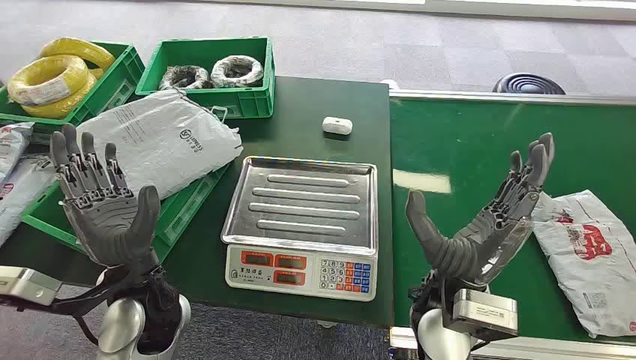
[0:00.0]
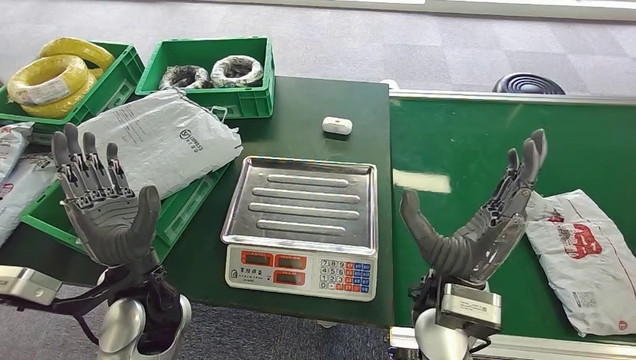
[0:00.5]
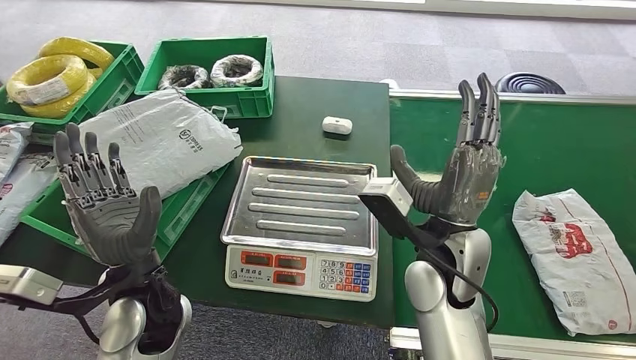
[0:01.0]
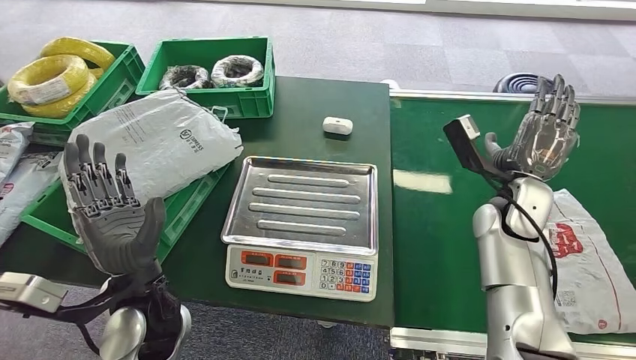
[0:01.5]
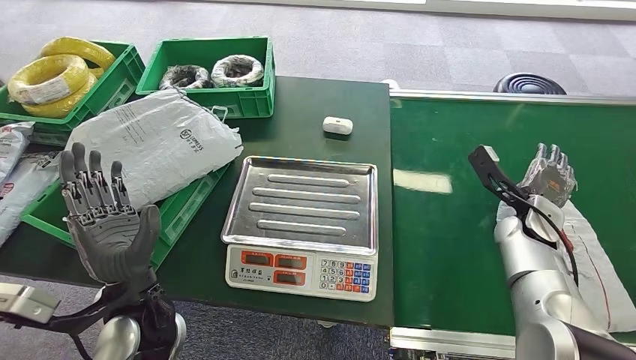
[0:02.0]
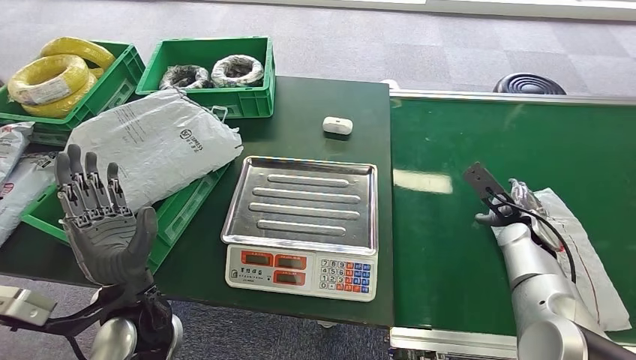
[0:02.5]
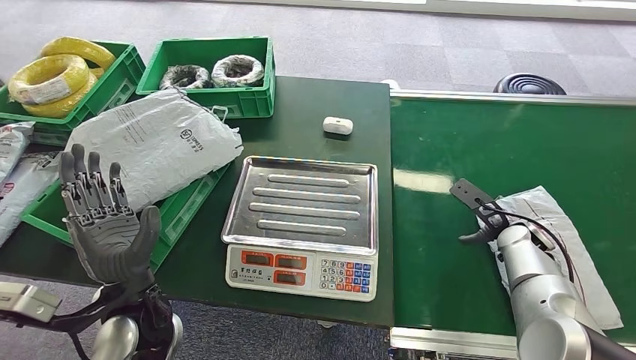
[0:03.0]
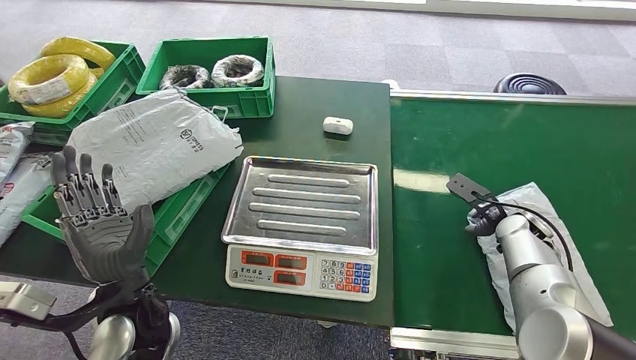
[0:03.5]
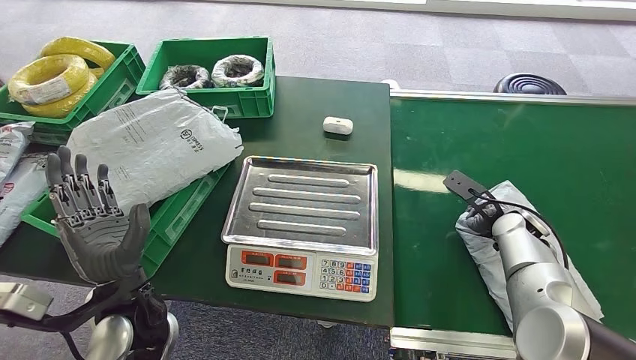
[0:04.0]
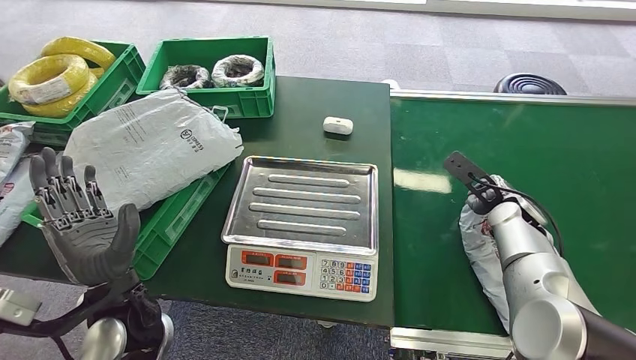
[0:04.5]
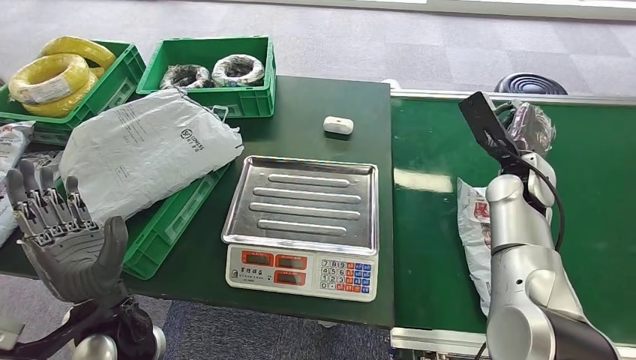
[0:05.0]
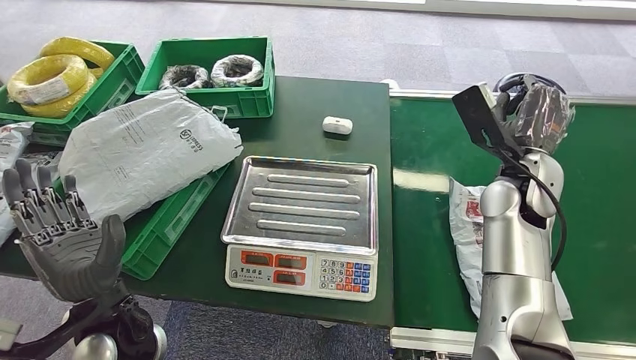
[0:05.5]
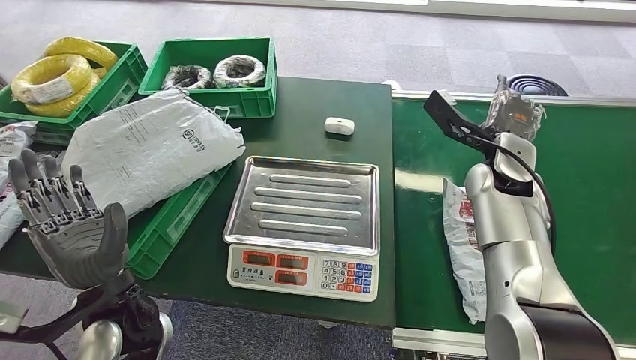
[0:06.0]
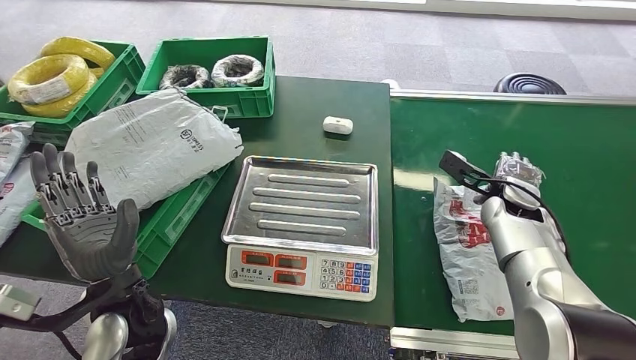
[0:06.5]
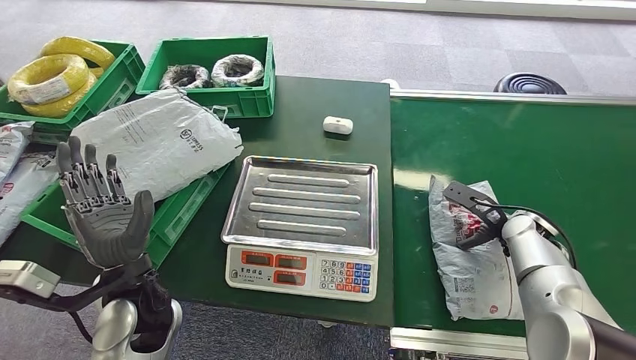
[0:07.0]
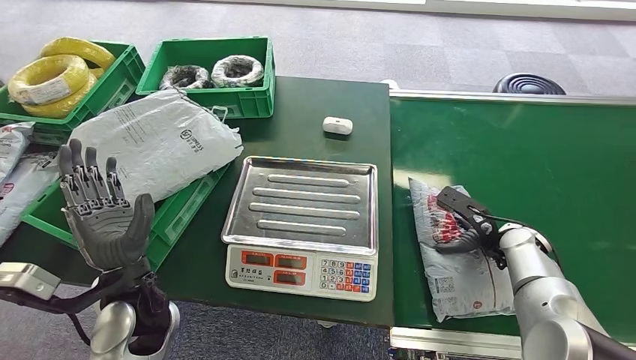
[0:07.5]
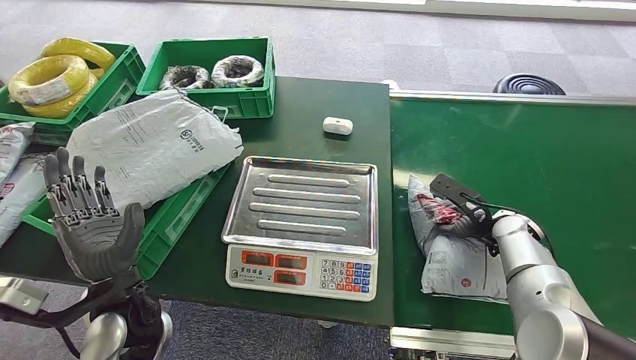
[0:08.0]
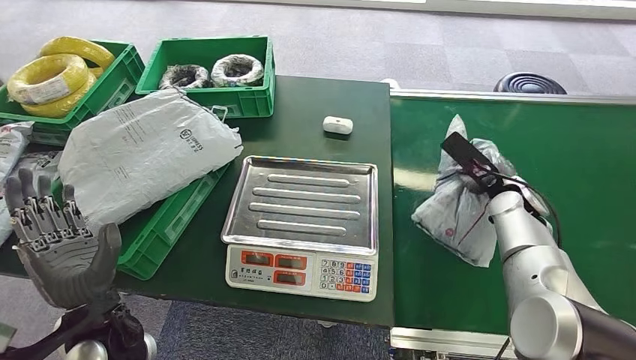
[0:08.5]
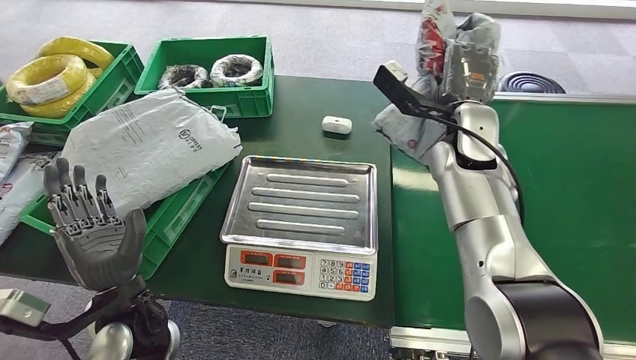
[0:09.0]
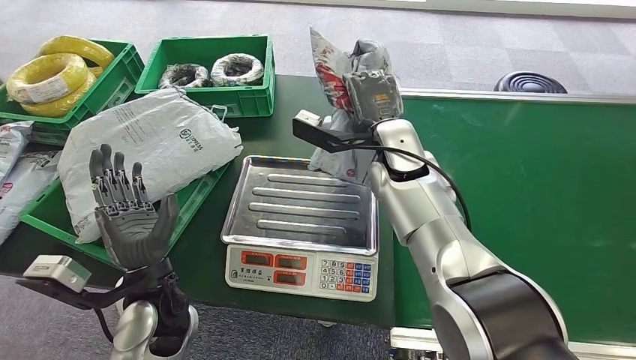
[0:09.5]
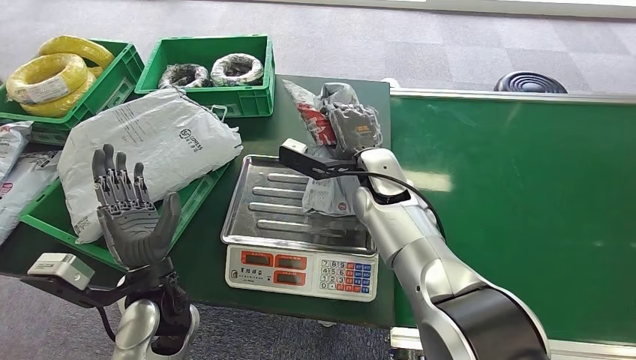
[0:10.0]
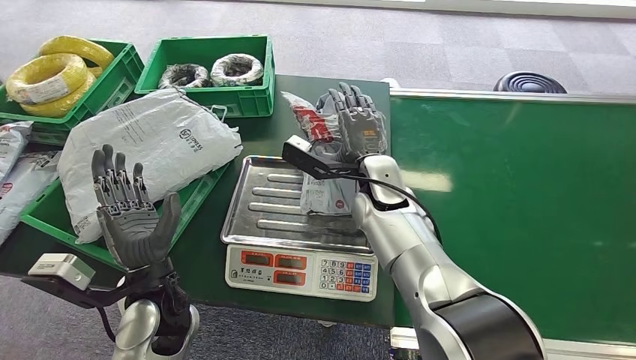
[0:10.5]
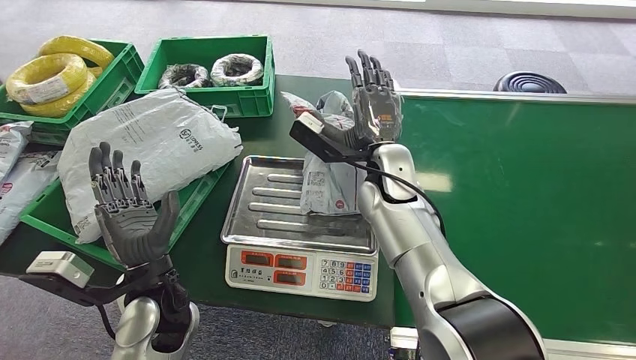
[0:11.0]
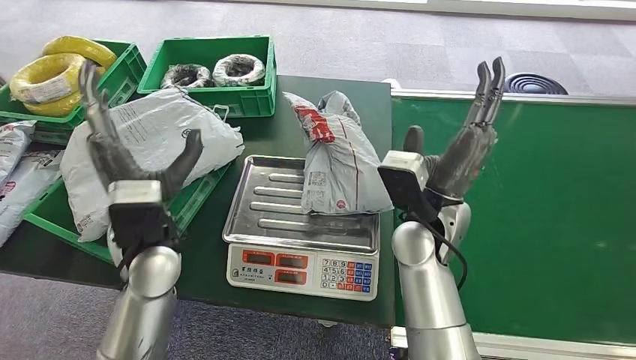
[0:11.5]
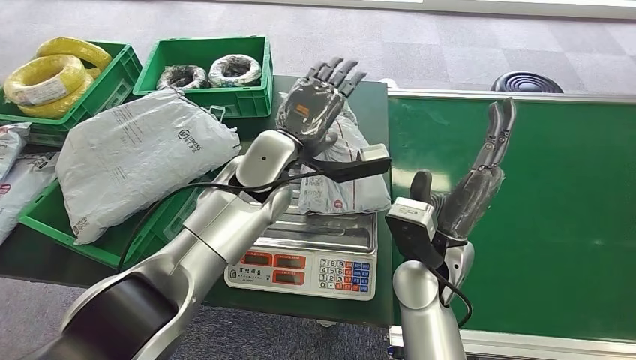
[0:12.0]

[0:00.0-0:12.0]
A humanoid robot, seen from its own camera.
Task of the whole recording: Weigh the package on the weighing device and place it in the left basket.
Step, 0:00.0 to 0:09.0: Pick up the package from the conveyor belt.
Step, 0:09.5 to 0:11.0: Place the package onto the inbound machine.

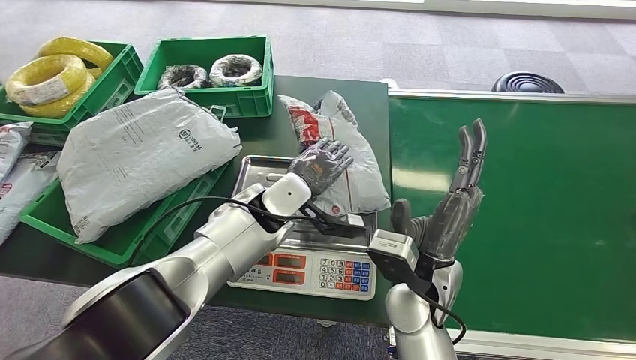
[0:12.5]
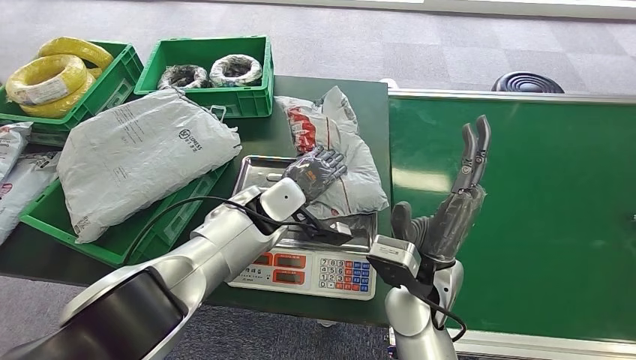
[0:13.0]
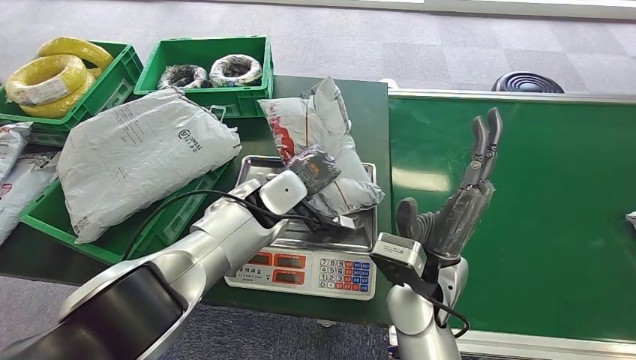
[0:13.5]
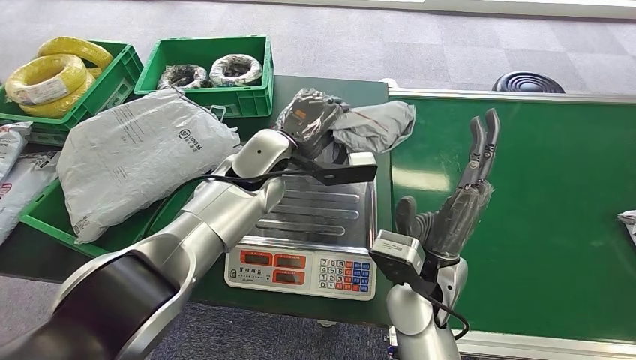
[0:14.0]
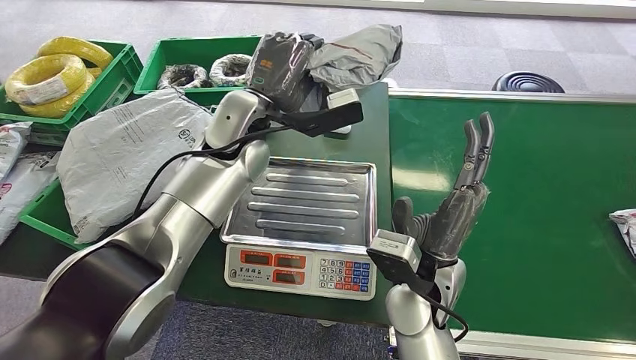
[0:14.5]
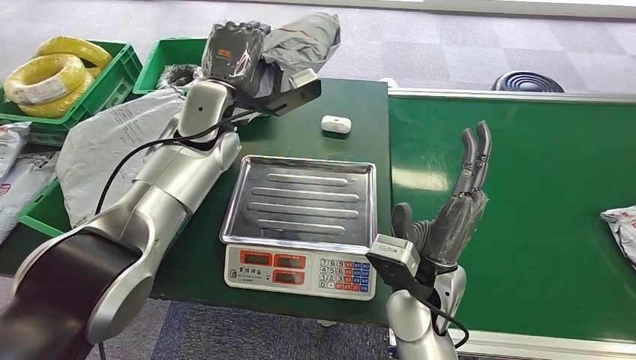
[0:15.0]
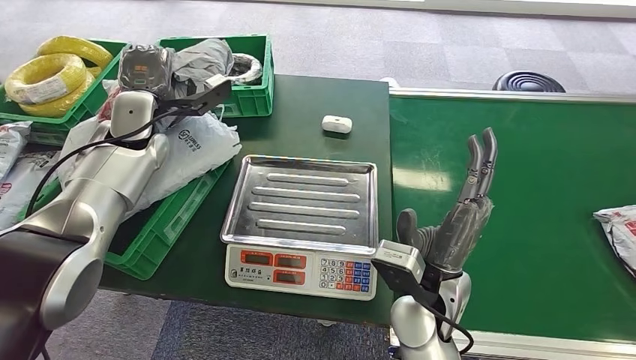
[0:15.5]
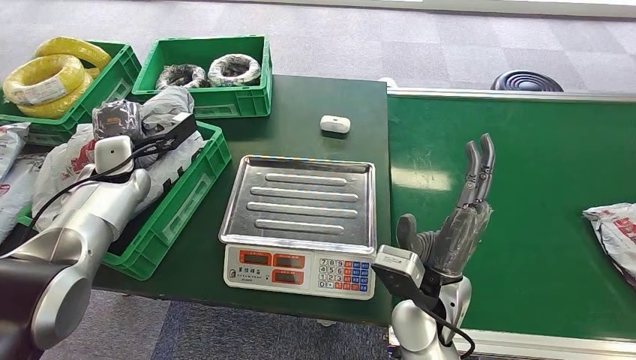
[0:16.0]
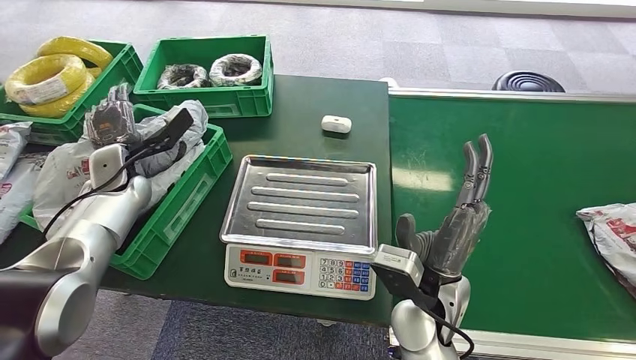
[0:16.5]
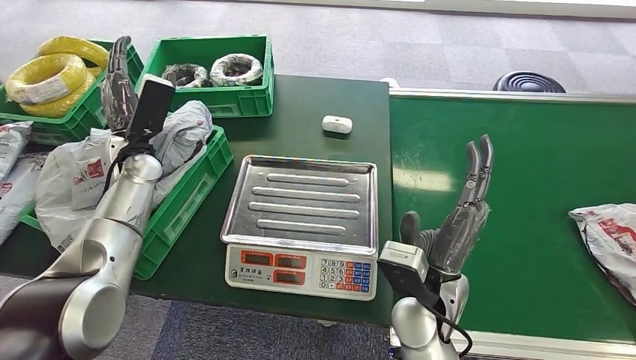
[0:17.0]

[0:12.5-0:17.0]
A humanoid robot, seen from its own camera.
Task of the whole recording: Weigh the package on the weighing device and place it in the left basket.
Step, 0:12.5 to 0:14.5: Pick up the package from the inbound machine.
Step, 0:15.5 to 0:17.0: Place the package into the parcel locker.
